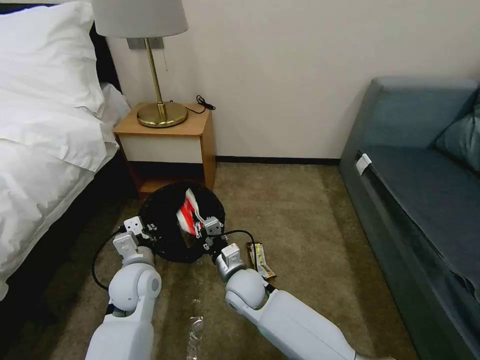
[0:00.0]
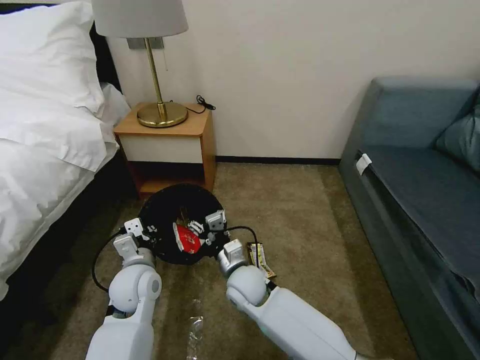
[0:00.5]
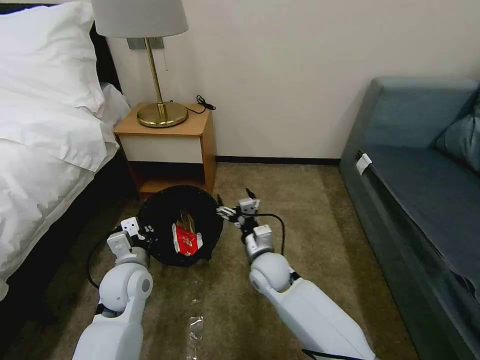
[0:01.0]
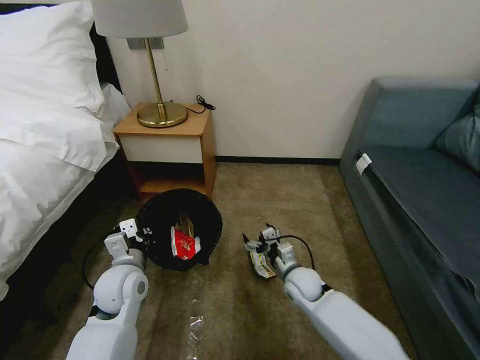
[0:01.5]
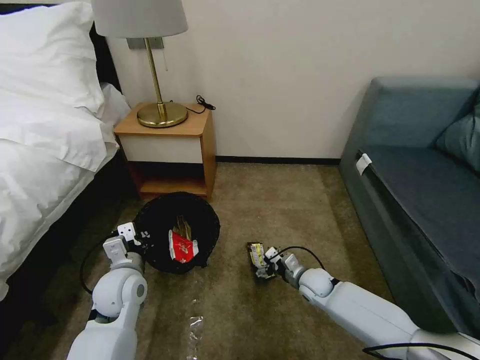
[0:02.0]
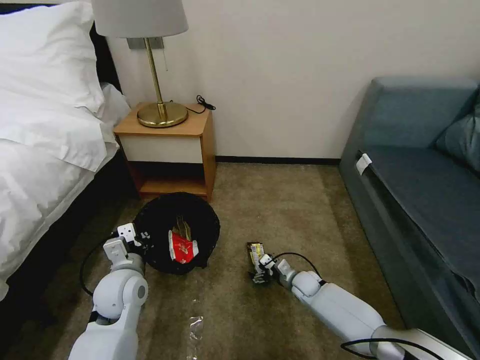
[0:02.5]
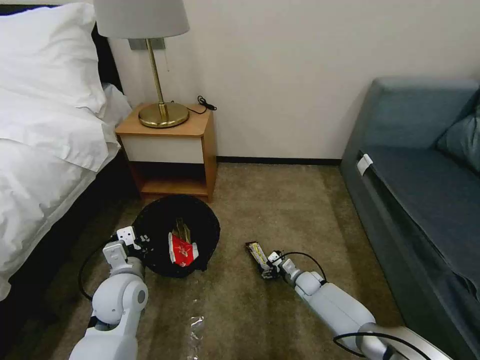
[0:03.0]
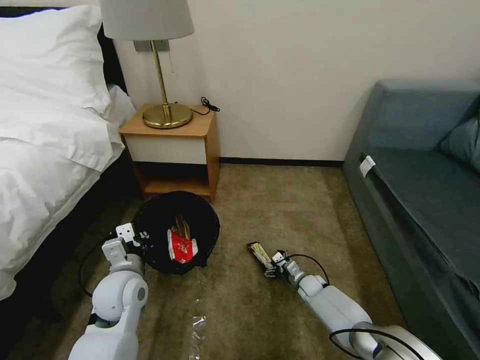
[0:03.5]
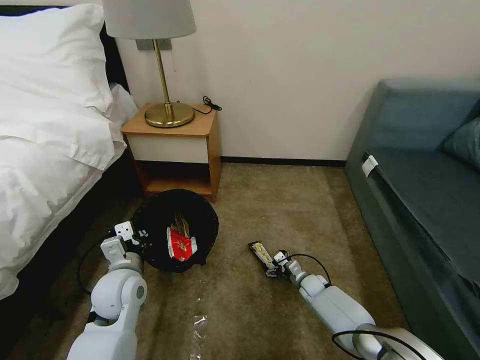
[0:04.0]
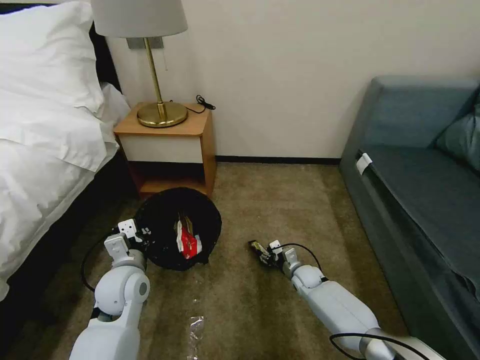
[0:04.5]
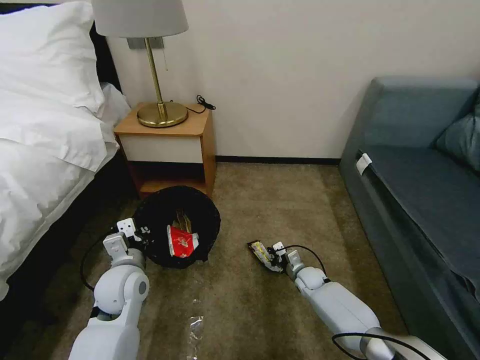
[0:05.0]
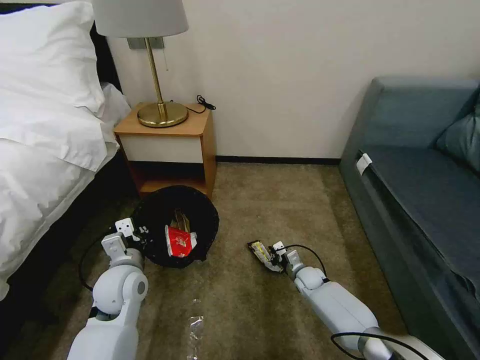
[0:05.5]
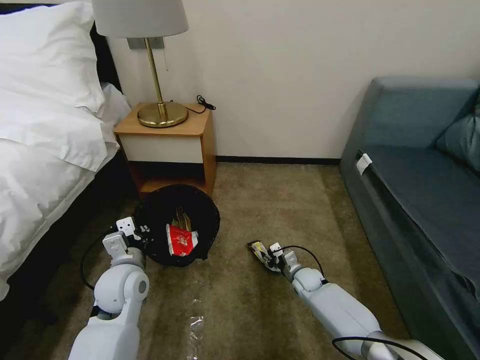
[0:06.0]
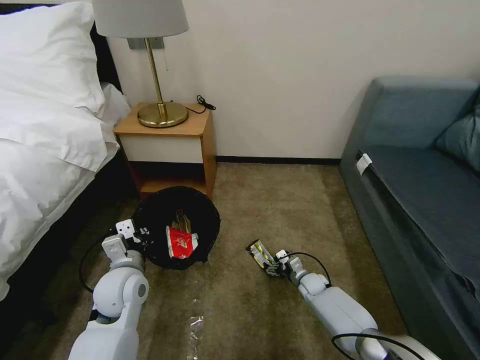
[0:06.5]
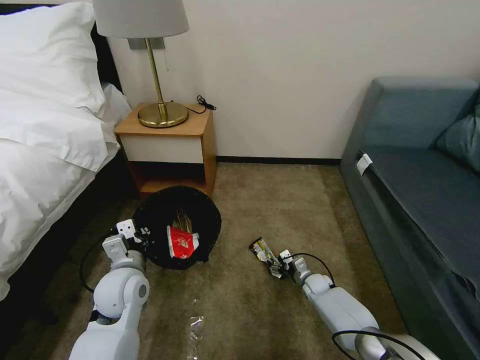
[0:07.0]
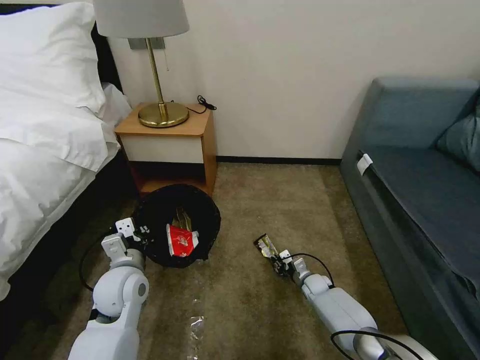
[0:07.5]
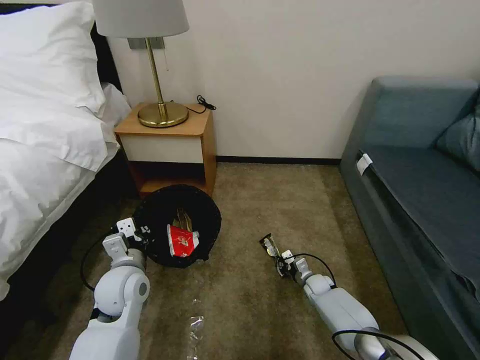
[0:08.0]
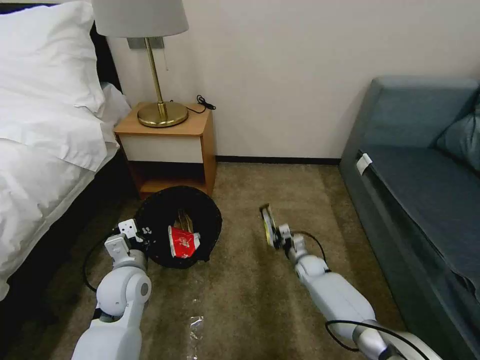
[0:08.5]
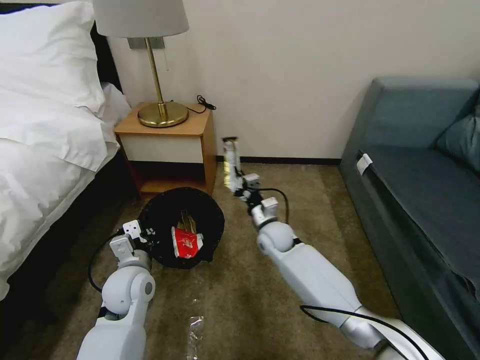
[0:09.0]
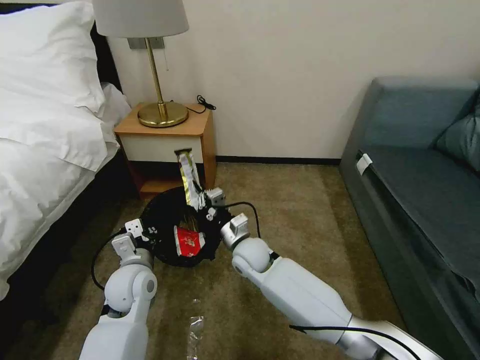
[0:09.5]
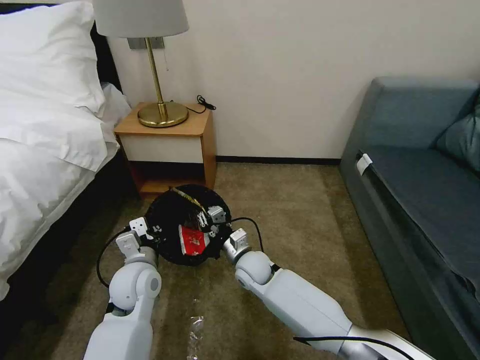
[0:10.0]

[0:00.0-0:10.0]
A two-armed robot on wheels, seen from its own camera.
Task of the whole recording: Pick up the trash bin, then pick up the garbage on the floor and place it into the trash bin.
0:00.0 to 0:02.0: The right gripper is displaced to the right and downward by roughly 25 cm, and opens.
0:02.0 to 0:04.0: The right gripper is displaced downward by some 10 cm.
0:04.0 to 0:06.0: The right gripper moves upward, roughly 5 cm, and closes up.
0:06.0 to 0:08.0: The right gripper changes place by roughly 5 cm, and closes up.
0:08.0 to 0:10.0: The right gripper moves to the left and upward, about 30 cm.

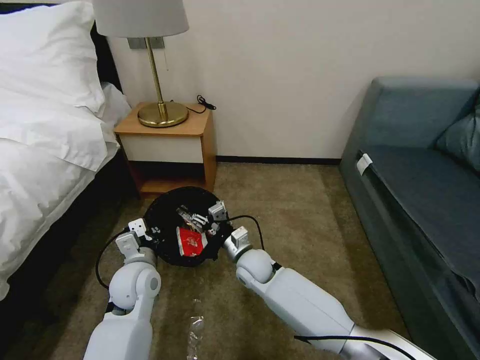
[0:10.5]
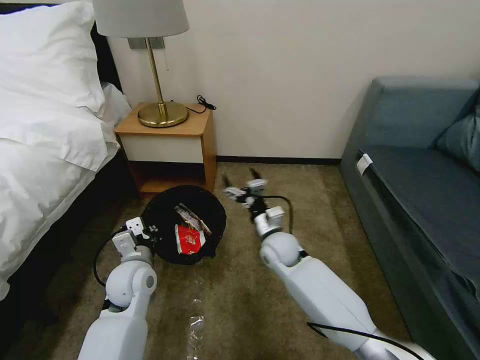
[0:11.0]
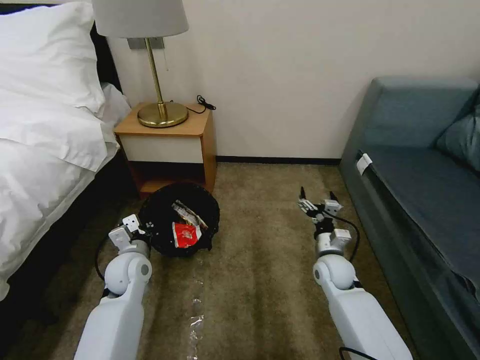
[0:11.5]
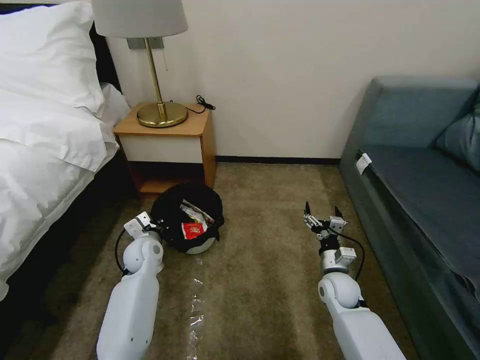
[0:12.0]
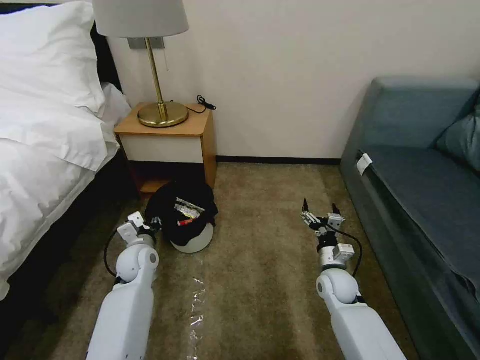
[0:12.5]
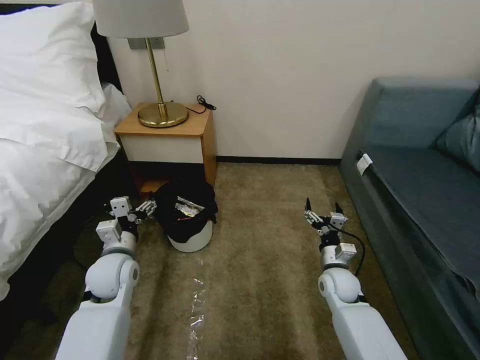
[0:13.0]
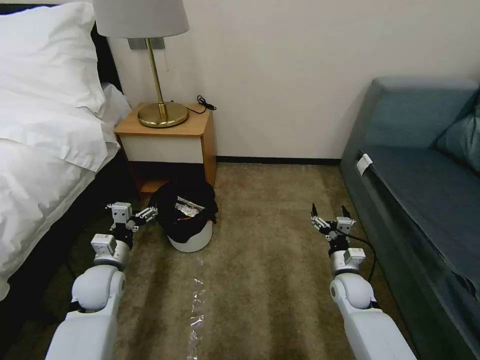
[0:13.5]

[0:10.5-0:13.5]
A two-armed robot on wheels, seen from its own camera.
Task of the whole recording: Pick up the trash bin, then pick up the garbage on the floor and place it into the trash bin.
0:10.5 to 0:12.0: The left gripper travels forward and downward by some 15 cm; the right gripper goes some 25 cm to the right.
0:12.0 to 0:13.5: The left gripper is displaced backward and to the left by some 10 cm, and opens up.

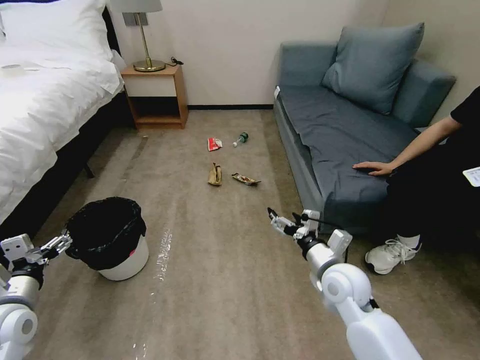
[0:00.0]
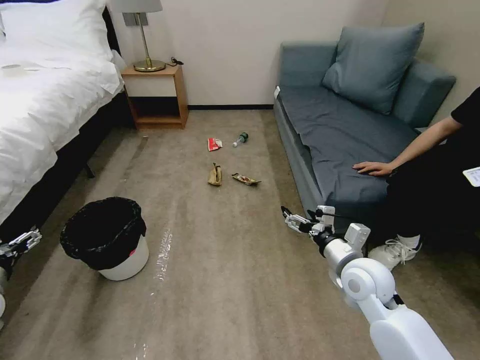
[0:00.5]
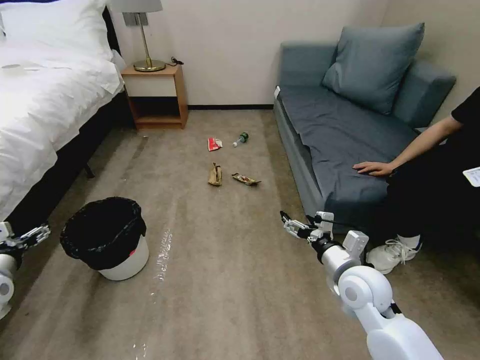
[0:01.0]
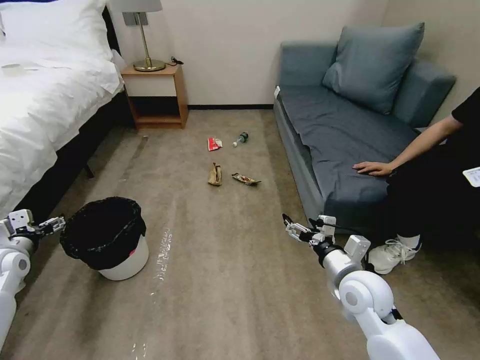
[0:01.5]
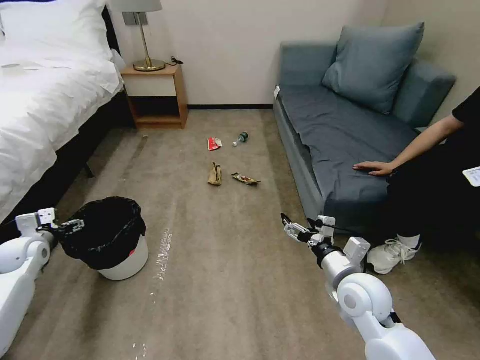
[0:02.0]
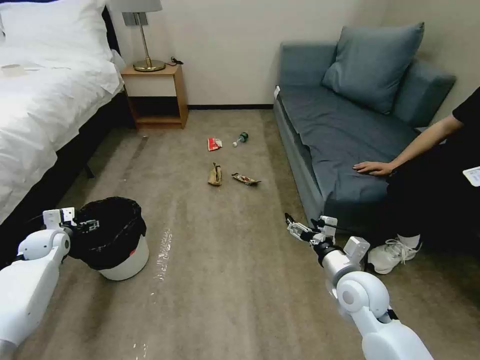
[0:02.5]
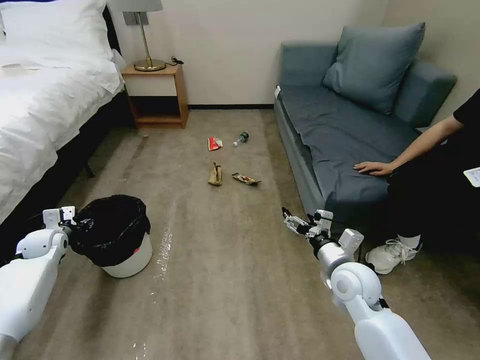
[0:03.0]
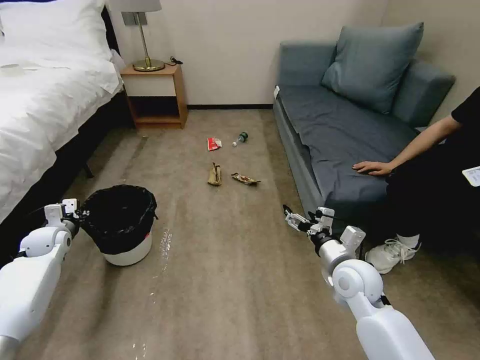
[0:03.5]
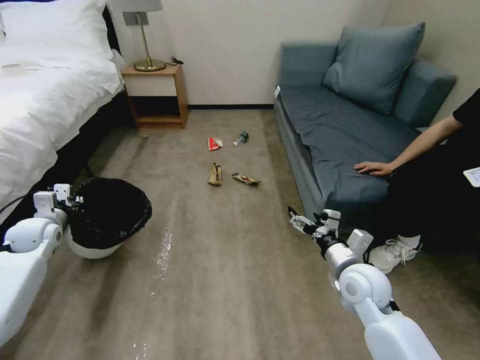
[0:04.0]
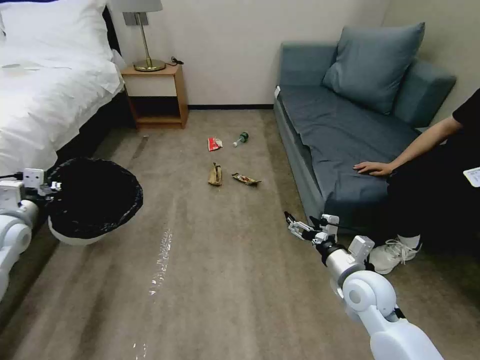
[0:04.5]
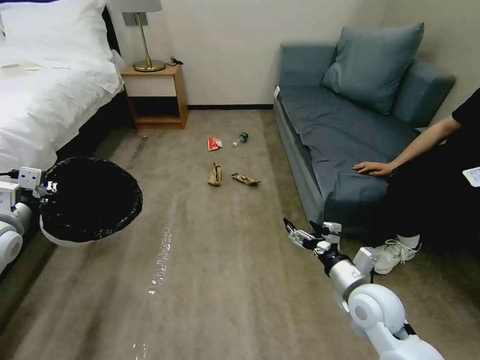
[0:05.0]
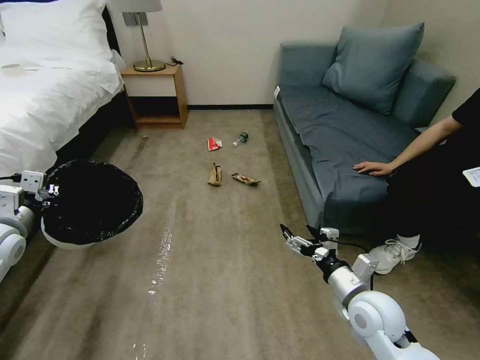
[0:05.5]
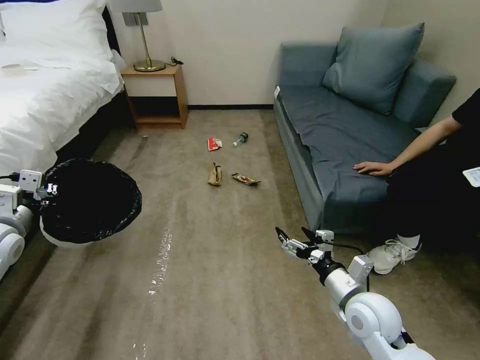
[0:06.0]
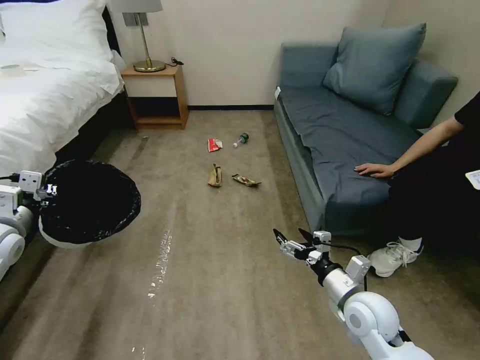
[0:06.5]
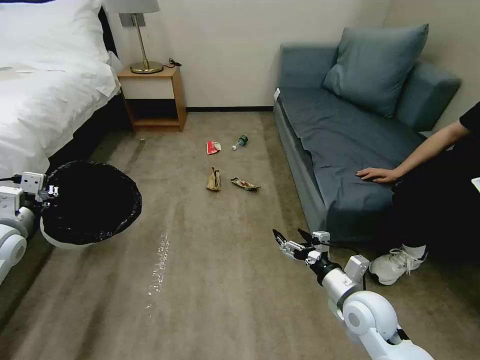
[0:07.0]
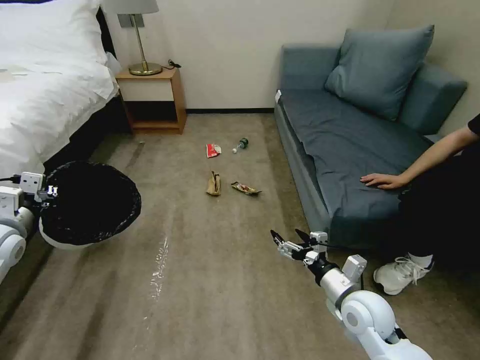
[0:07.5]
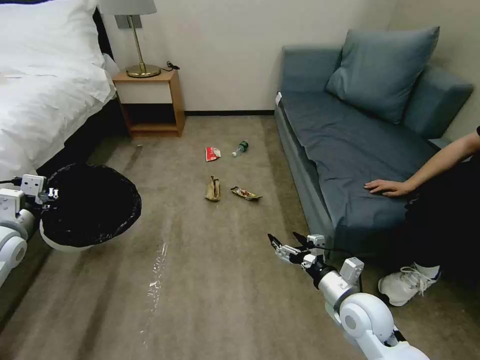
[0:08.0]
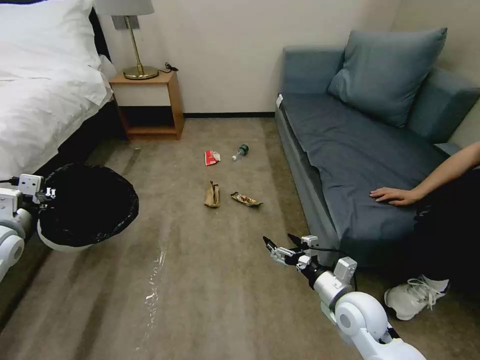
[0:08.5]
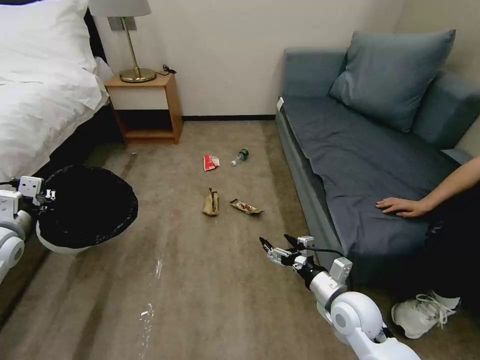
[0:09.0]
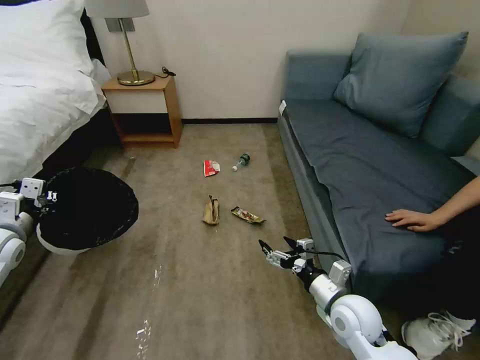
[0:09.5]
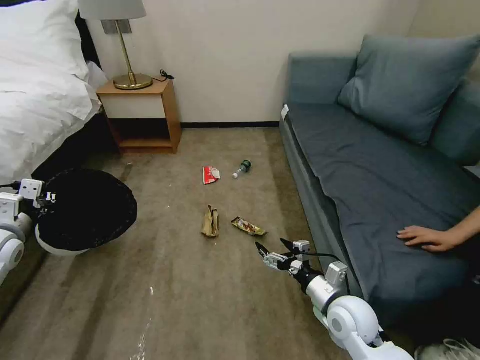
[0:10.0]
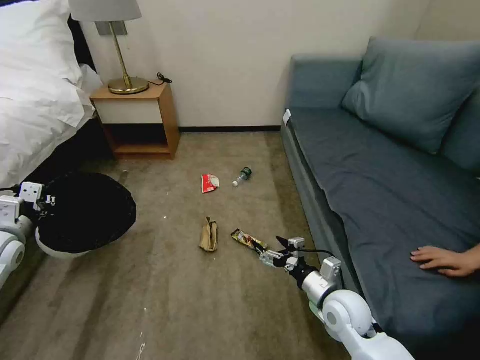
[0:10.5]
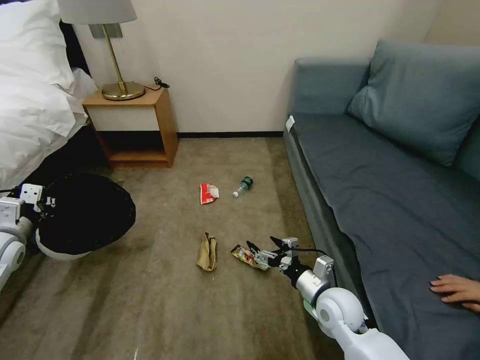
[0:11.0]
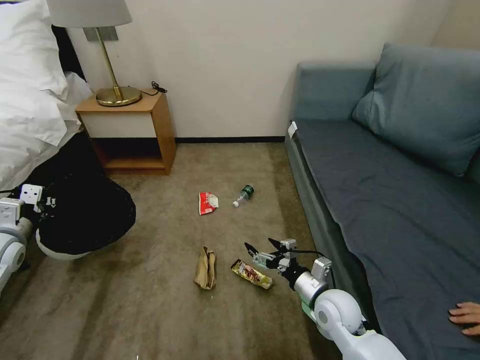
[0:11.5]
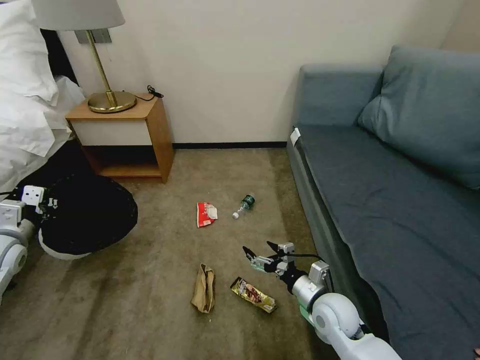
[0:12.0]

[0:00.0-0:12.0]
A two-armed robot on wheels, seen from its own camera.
Task of the whole recording: Pick up the trash bin, then pick up the garbage on the floor and place it into the trash bin.
0:02.0 to 0:04.0: The left gripper ends up some 5 cm from where it was, and closes up.
0:04.0 to 0:06.0: The right gripper shifts about 5 cm backward. The left gripper travels upward and backward by some 15 cm.
